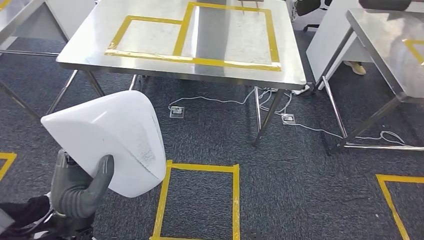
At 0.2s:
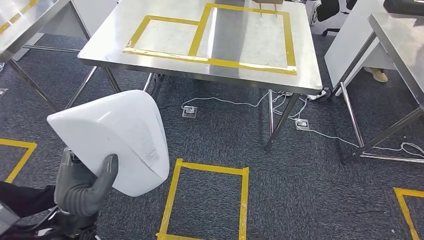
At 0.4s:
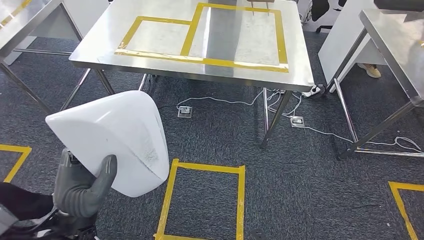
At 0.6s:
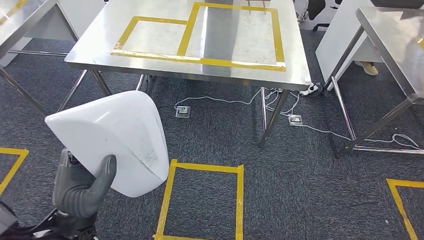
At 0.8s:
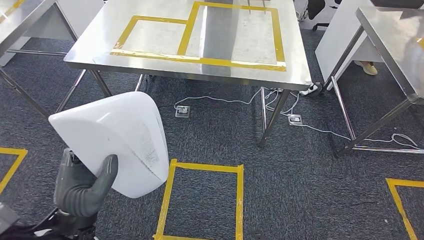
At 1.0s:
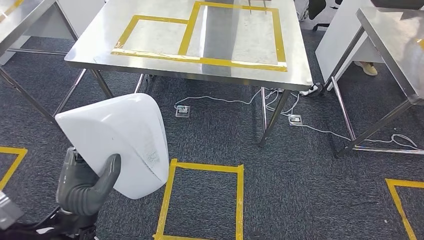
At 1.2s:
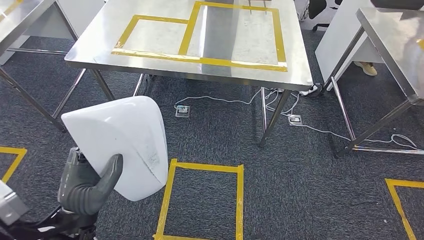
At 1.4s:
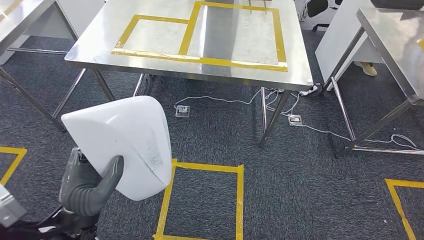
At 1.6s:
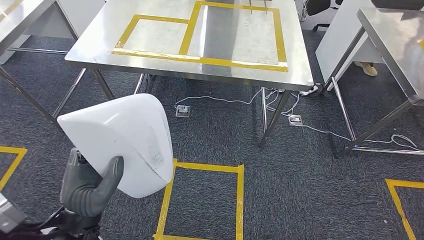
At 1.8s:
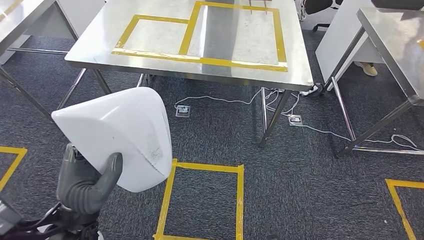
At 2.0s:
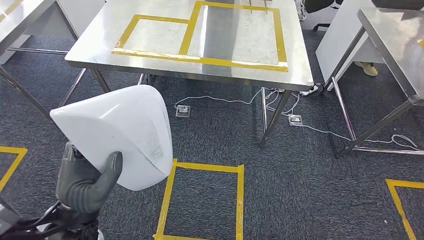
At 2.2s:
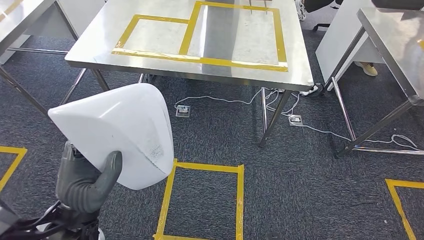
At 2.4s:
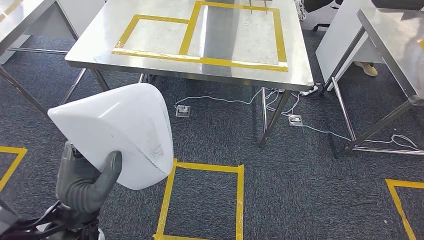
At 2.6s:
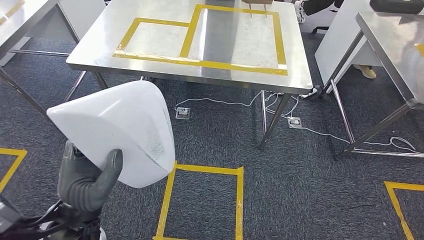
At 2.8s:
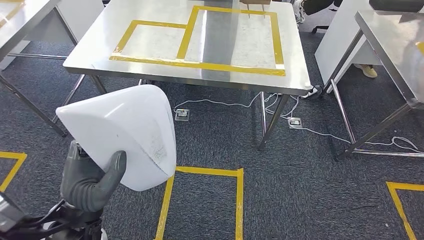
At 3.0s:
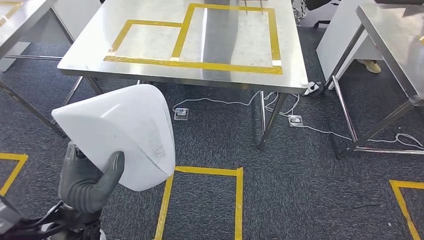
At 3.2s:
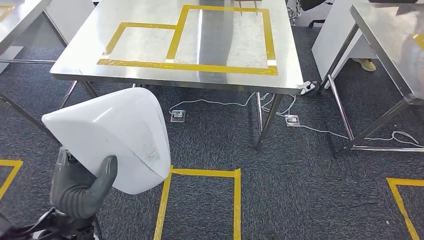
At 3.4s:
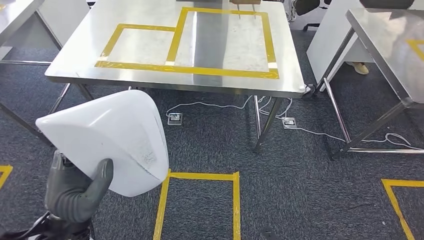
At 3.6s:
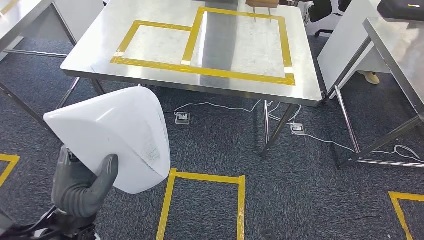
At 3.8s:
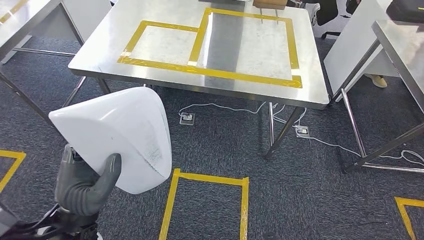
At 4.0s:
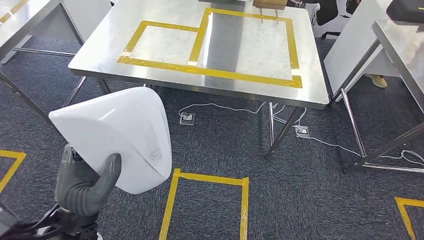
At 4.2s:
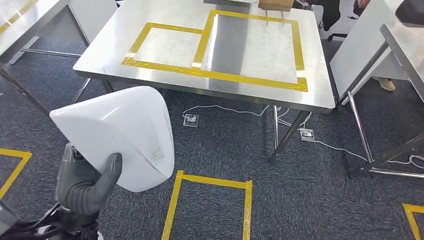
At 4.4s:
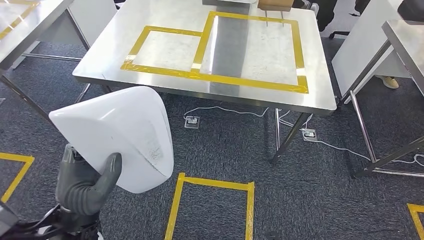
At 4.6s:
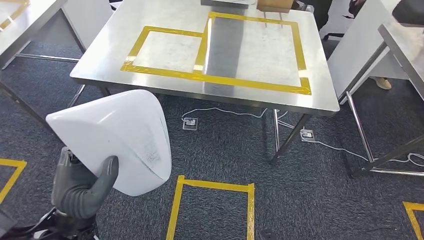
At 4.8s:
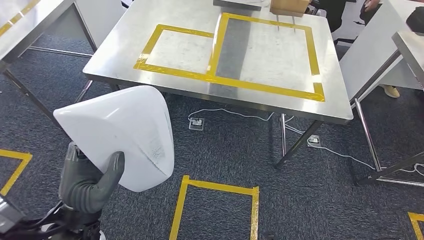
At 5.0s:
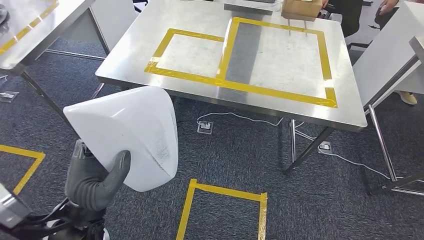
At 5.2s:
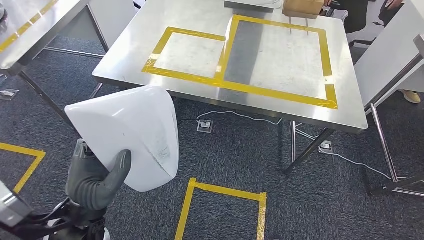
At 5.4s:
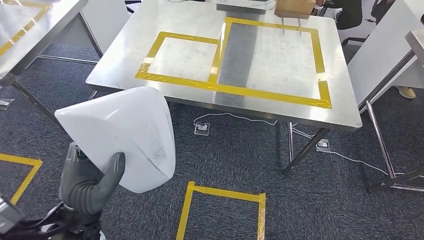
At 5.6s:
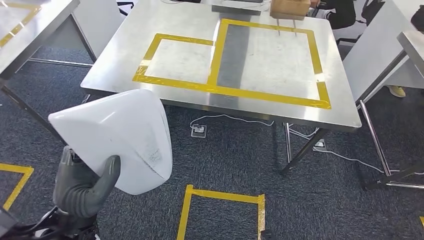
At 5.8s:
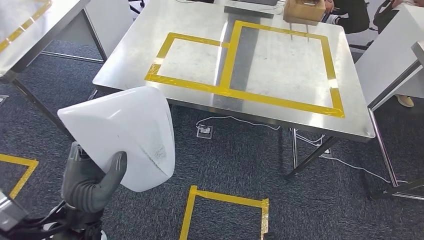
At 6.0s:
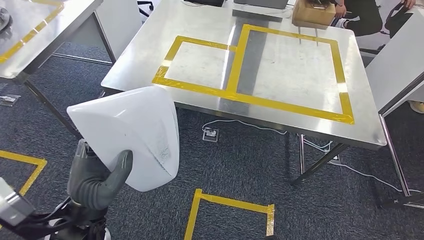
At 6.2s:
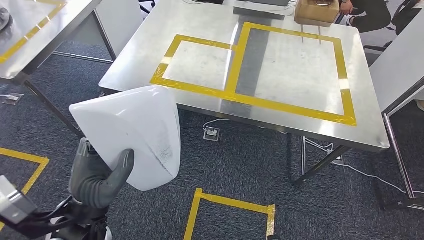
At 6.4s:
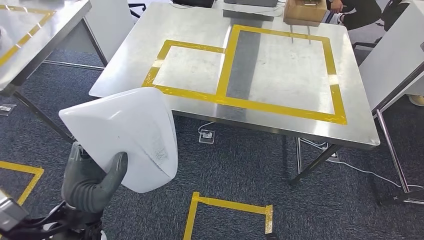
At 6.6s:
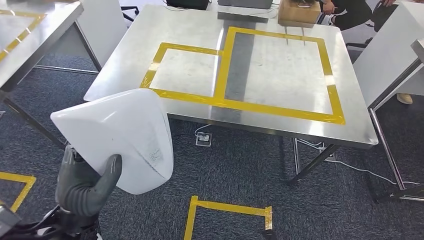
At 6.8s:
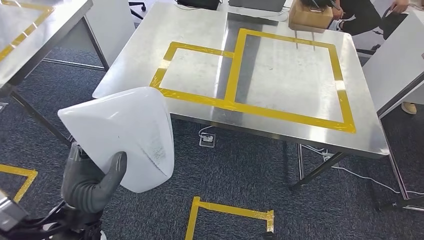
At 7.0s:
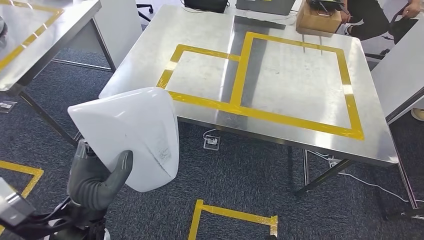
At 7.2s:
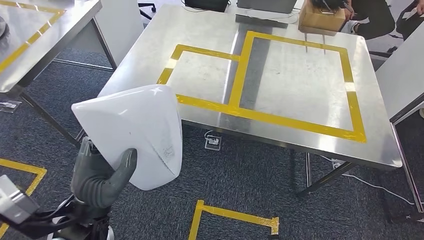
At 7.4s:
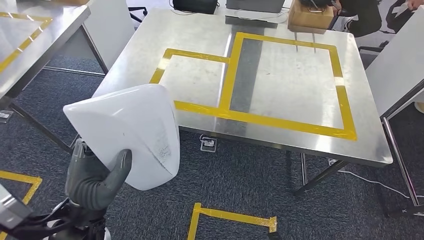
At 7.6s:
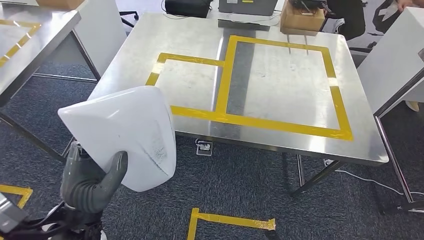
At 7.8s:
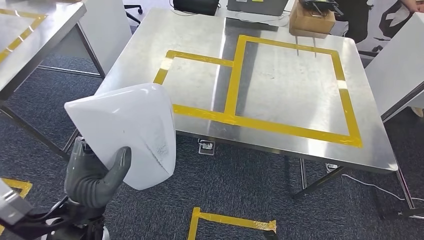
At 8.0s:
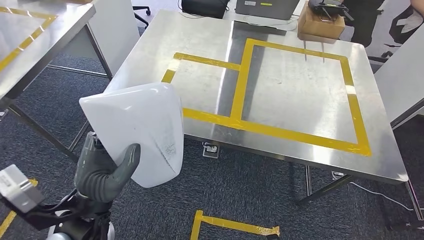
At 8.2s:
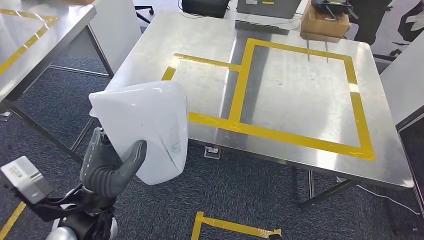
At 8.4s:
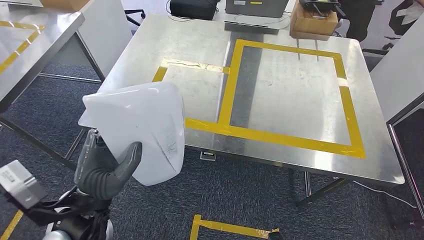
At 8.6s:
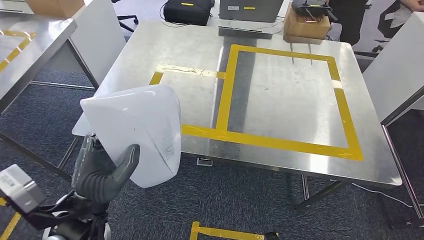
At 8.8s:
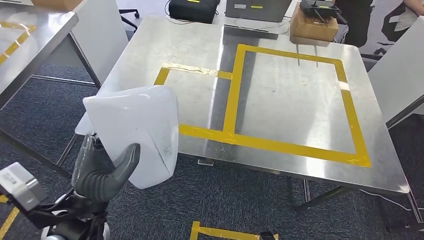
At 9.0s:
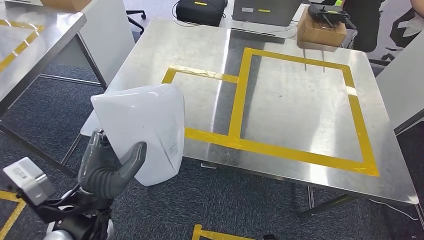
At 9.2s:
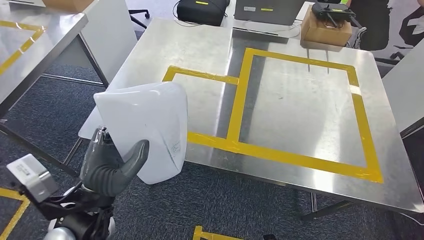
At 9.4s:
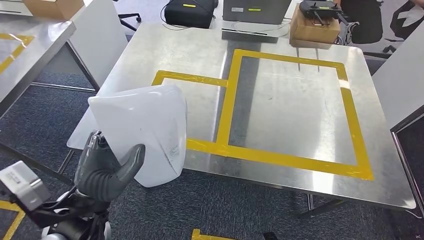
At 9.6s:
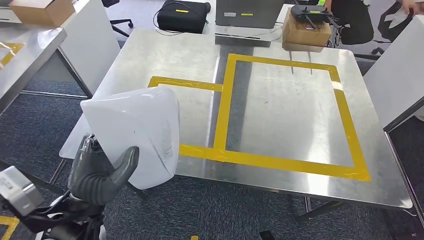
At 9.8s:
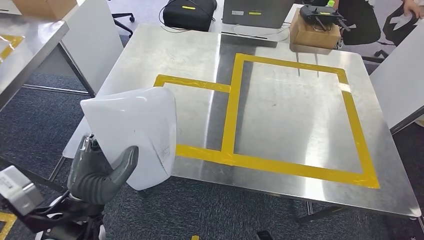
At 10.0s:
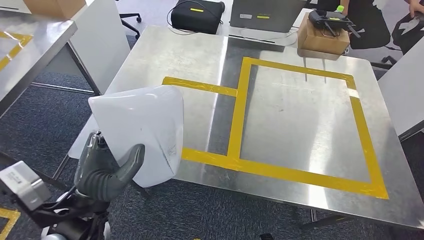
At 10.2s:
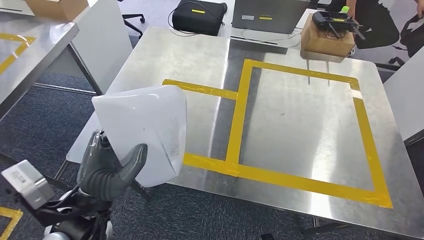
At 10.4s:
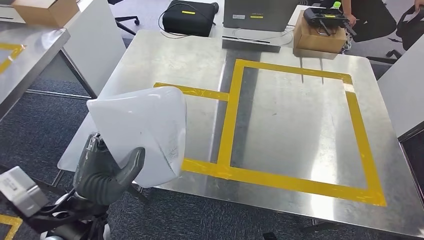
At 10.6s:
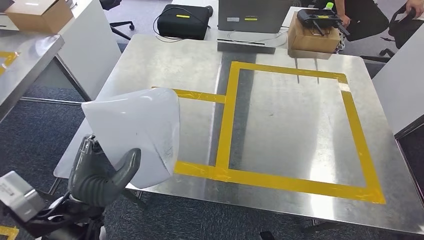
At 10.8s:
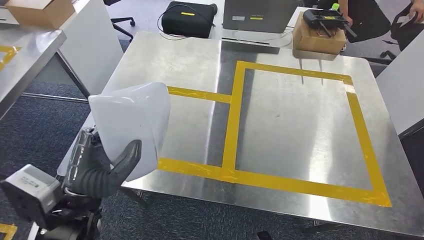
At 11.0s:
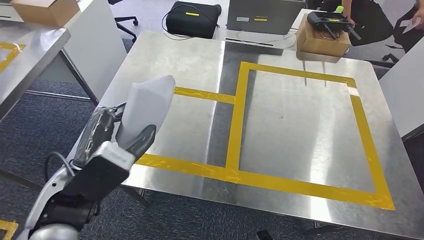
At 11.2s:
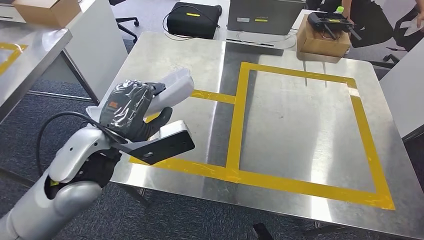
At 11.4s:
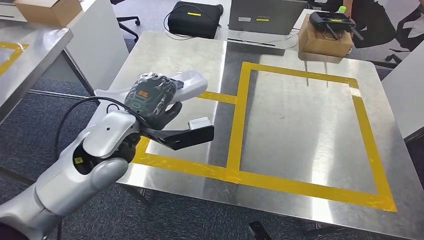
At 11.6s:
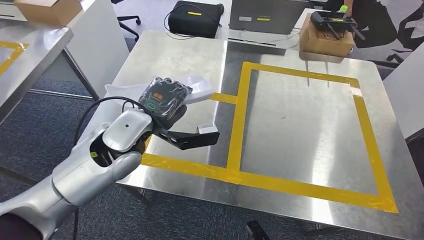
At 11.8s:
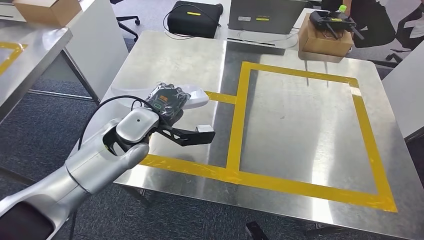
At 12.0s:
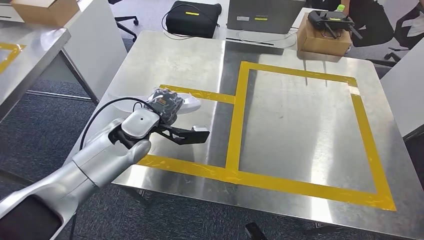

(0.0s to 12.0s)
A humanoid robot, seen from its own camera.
Step, 0.0s - 5.8s: Move the small component to the workbench.
1.6s - 3.0s: The hands stay close to where they were, moving slightly.

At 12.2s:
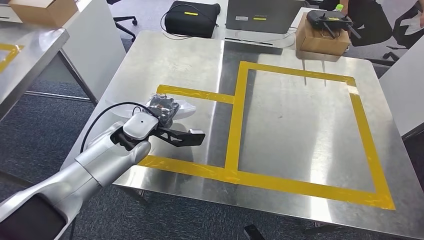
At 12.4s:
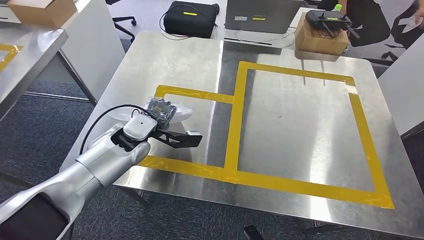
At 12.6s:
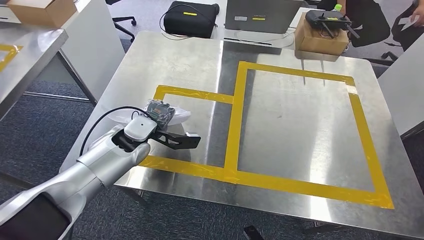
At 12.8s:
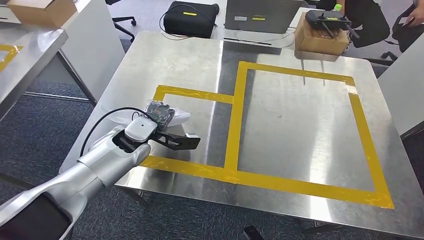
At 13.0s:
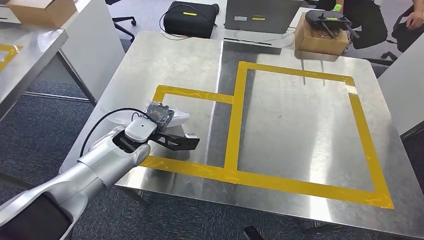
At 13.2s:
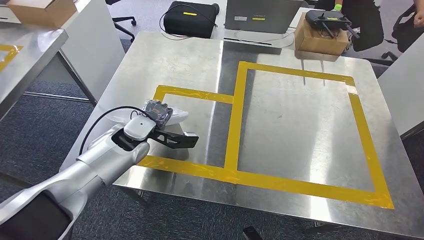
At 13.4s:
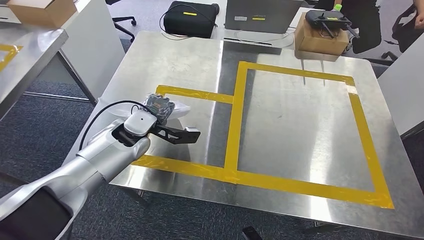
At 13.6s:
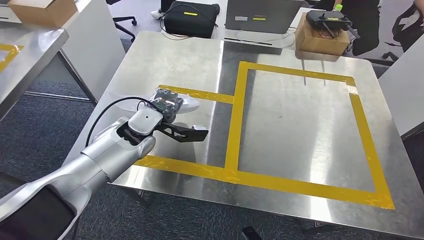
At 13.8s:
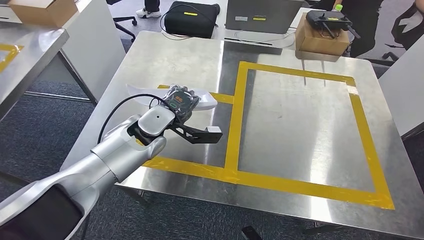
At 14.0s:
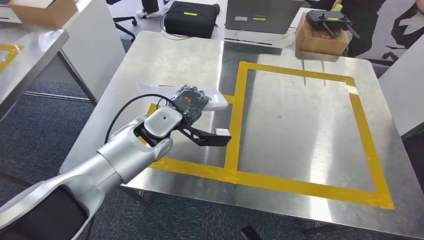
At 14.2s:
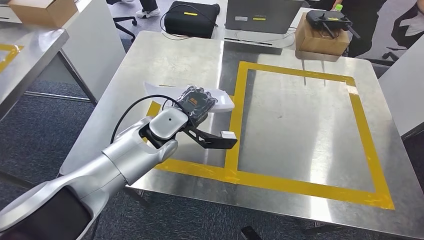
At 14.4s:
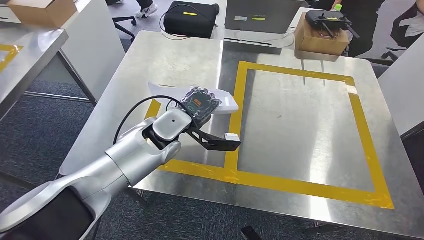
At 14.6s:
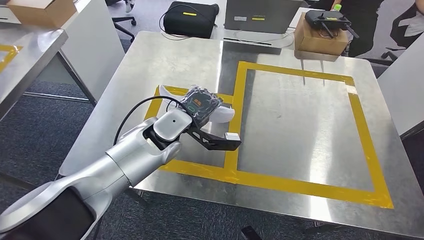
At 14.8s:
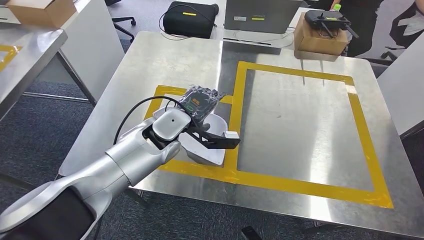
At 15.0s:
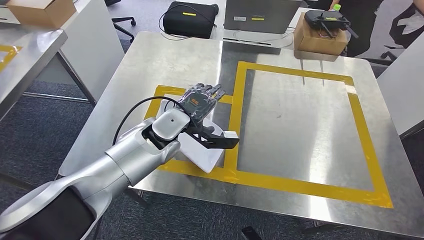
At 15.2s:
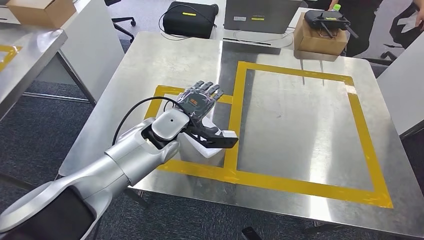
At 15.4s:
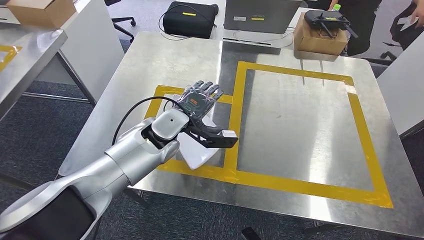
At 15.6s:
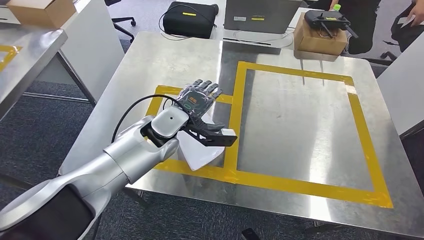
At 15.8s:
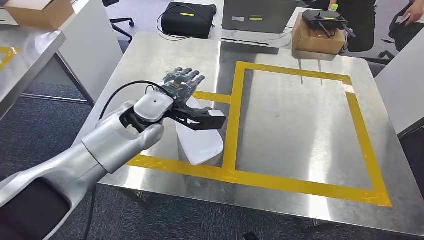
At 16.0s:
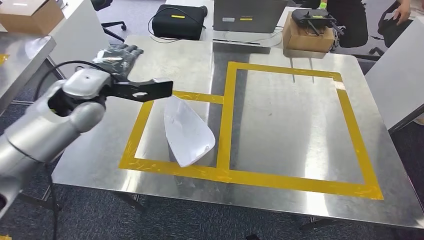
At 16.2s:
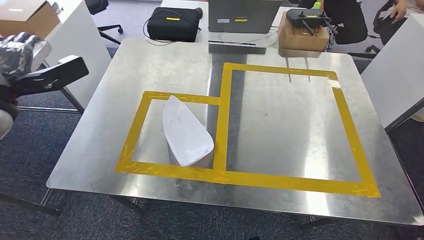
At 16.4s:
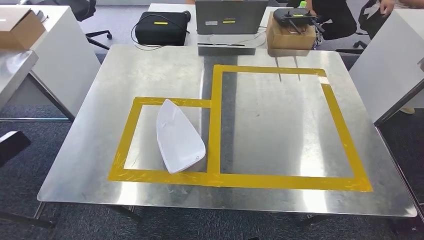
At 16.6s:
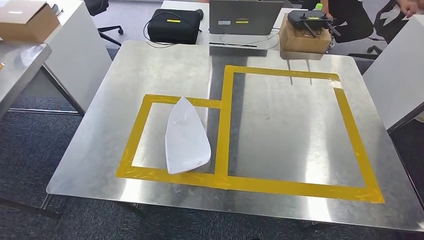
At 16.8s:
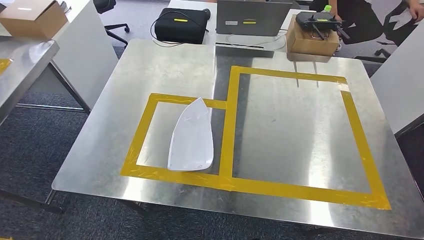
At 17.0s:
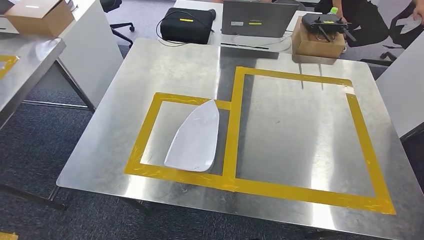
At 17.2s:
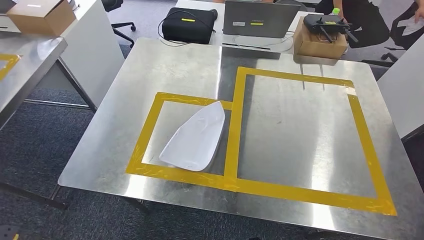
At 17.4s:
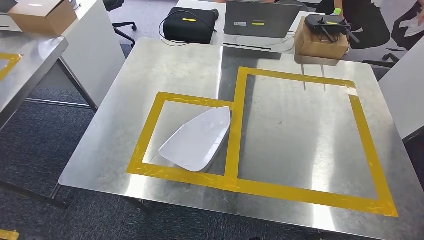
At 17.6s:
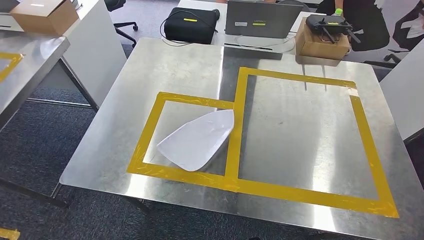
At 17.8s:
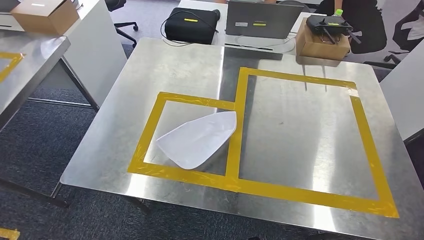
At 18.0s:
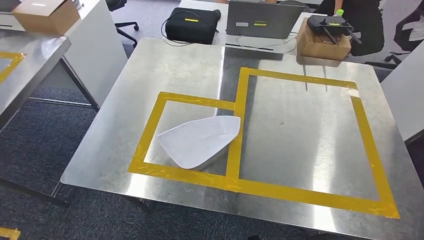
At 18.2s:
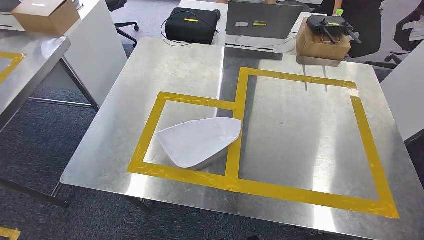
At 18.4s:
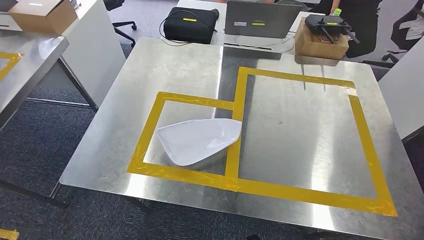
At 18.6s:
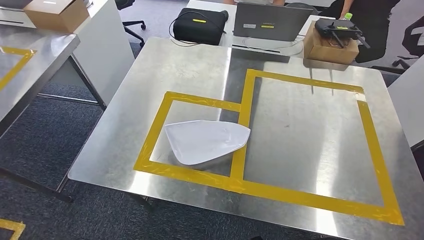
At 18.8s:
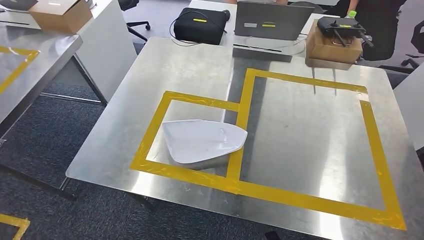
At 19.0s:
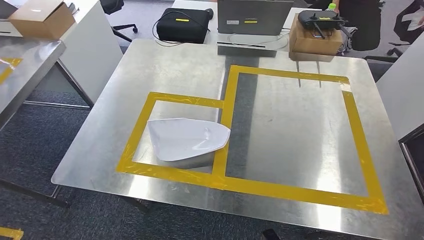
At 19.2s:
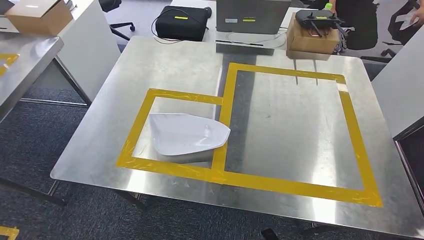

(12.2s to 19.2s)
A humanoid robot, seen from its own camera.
Step, 12.2s - 16.4s: Insert the small component into the corresponding slot on the workbench.
12.2s - 13.6s: The hands make only small movements.
13.6s - 15.0s: The left hand heads to the right, covering some 5 cm.
